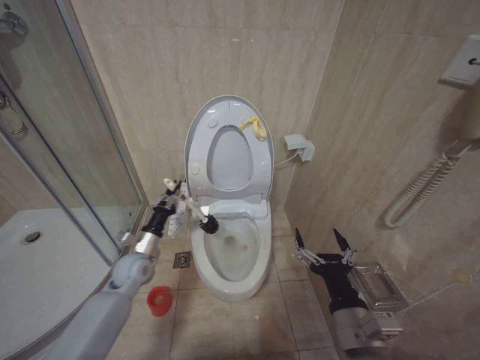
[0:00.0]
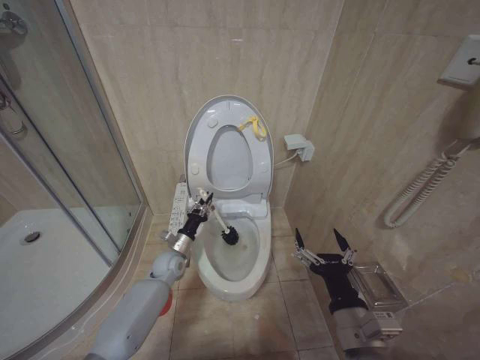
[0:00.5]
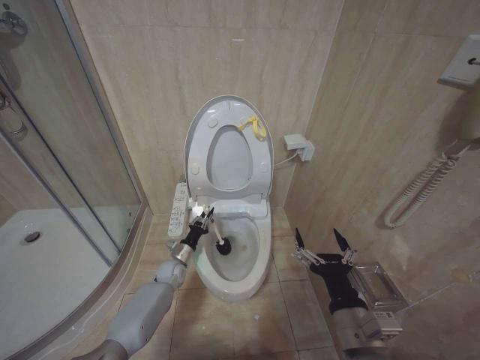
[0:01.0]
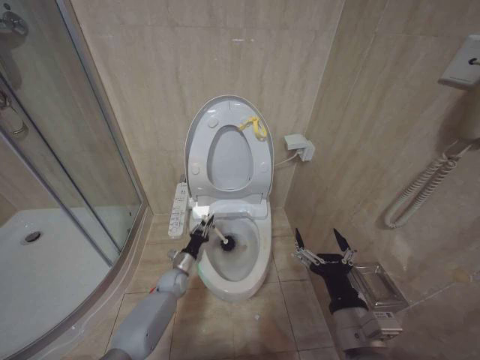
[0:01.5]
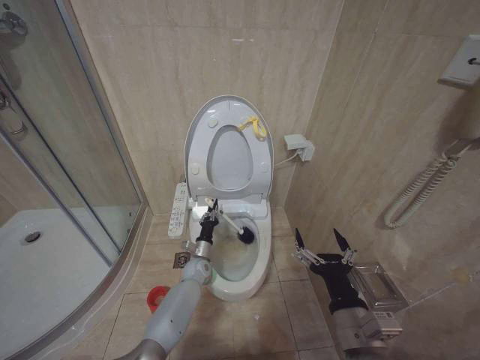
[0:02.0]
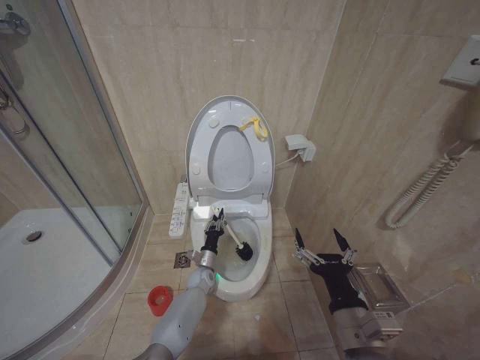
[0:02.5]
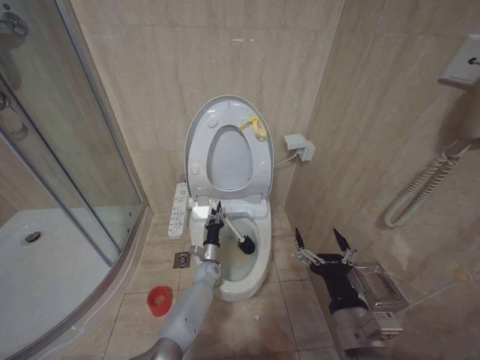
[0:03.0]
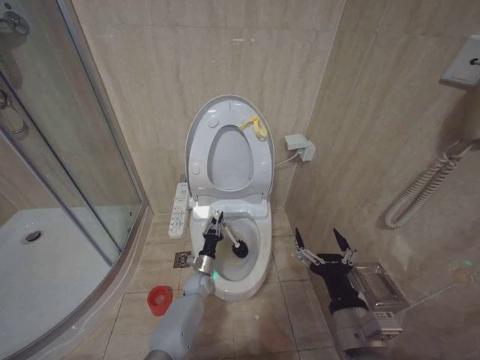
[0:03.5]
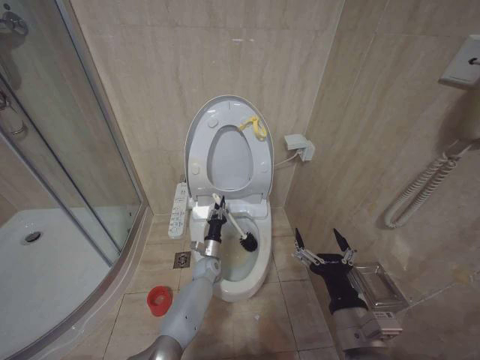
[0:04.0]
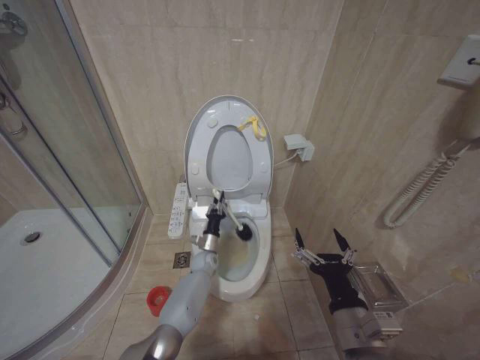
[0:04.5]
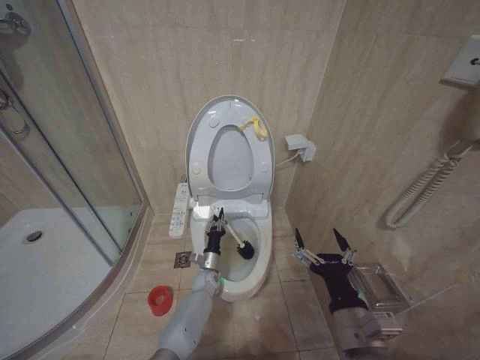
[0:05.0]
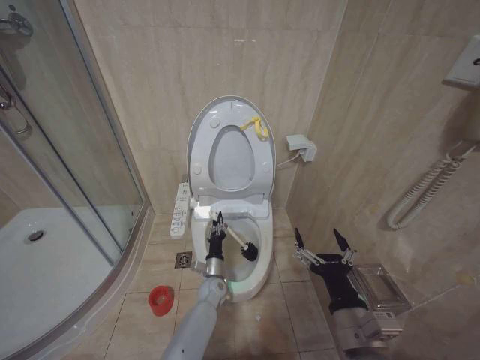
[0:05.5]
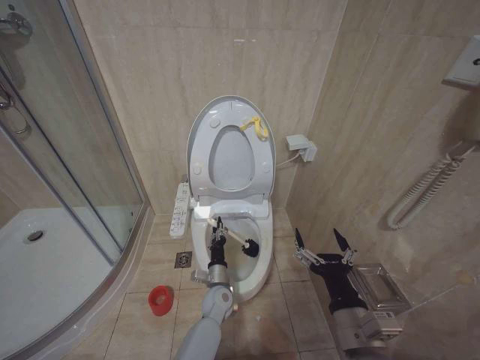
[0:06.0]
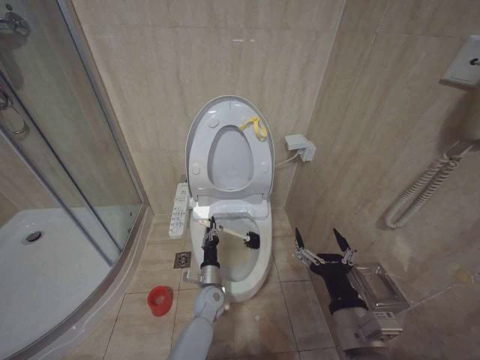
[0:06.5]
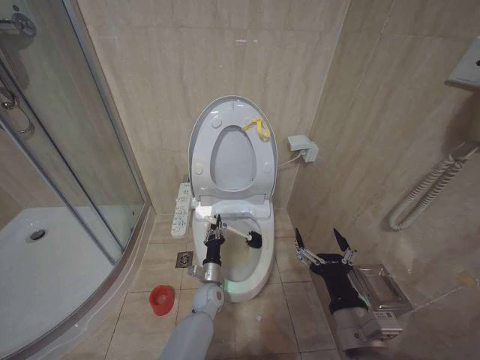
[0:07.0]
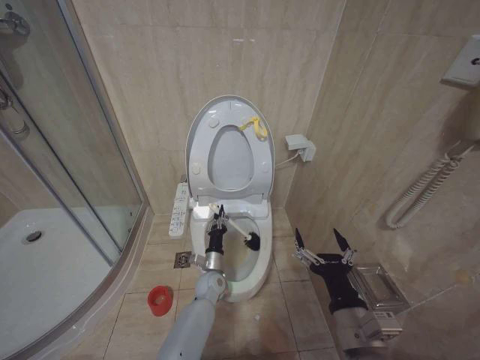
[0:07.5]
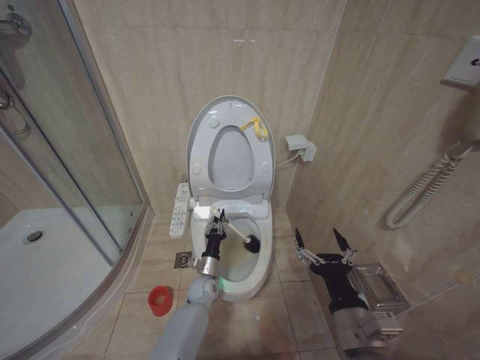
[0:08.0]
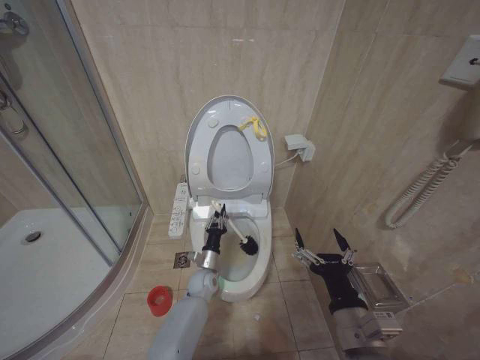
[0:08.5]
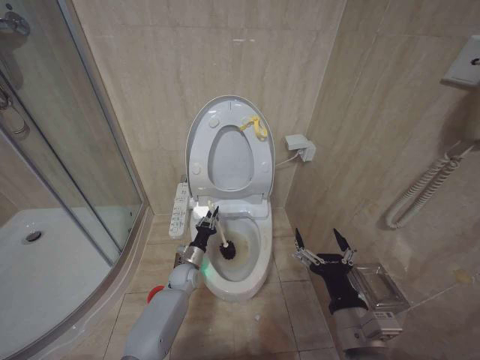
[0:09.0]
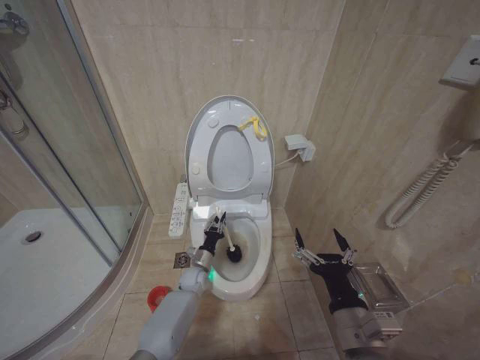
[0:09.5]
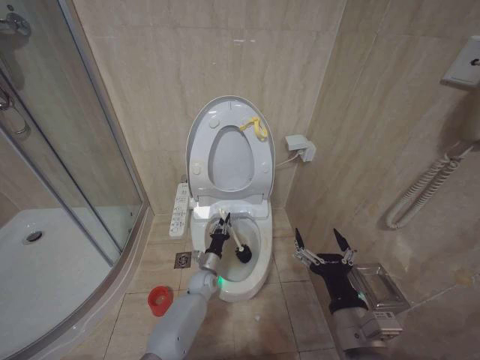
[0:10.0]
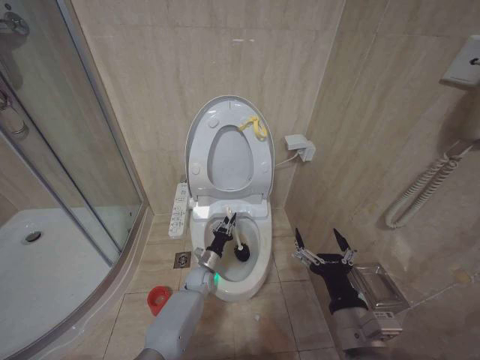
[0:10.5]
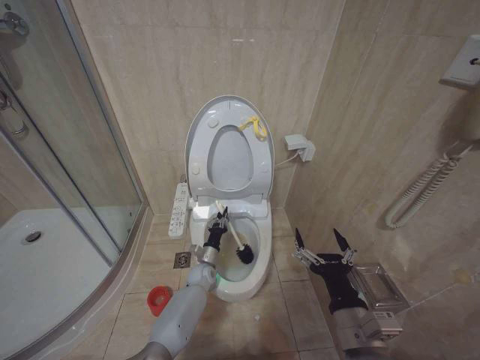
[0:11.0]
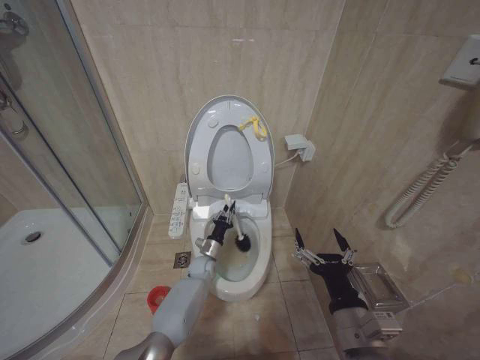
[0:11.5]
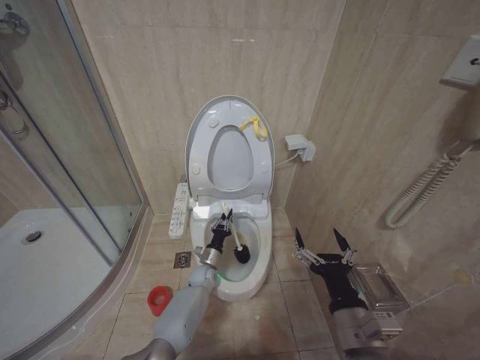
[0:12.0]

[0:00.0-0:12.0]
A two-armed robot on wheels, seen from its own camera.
Task of the whole recording: Open the toilet lid, clean the toilet bowl with a toilet brush, close the toilet lid, and flush.
0.0 to 2.0 s: The left gripper is displaced downward, to the right and forward by about 25 cm.
2.0 to 4.0 s: The left gripper goes roughly 5 cm to the right.
4.0 to 6.0 s: The left gripper heads backward, covering approximately 10 cm.
6.0 to 8.0 s: The left gripper ends up some 5 cm from where it was.

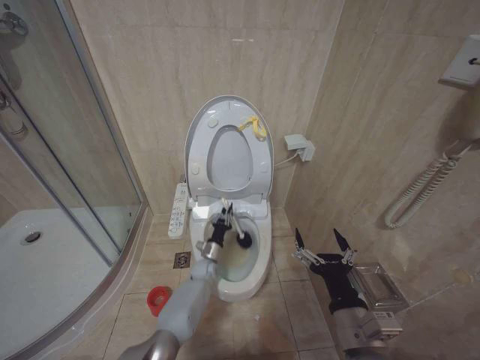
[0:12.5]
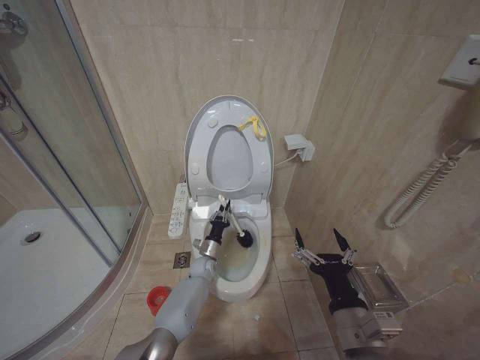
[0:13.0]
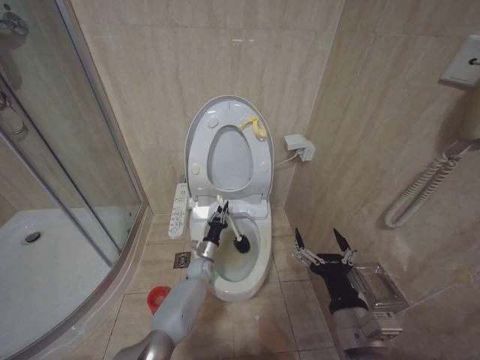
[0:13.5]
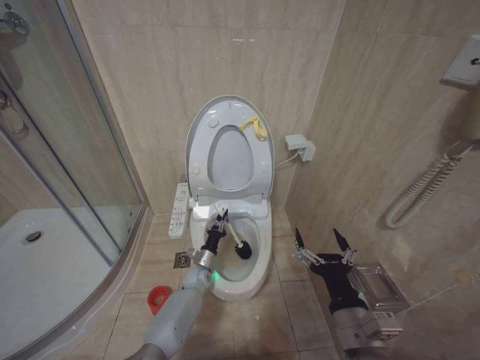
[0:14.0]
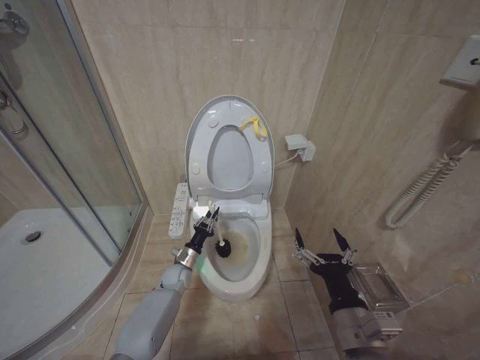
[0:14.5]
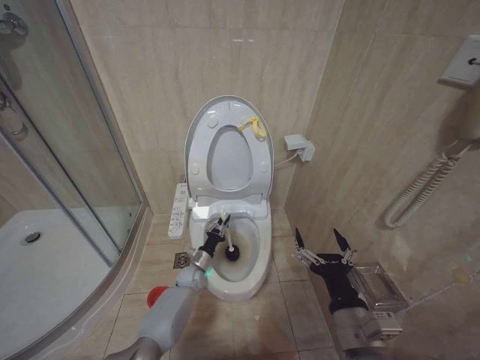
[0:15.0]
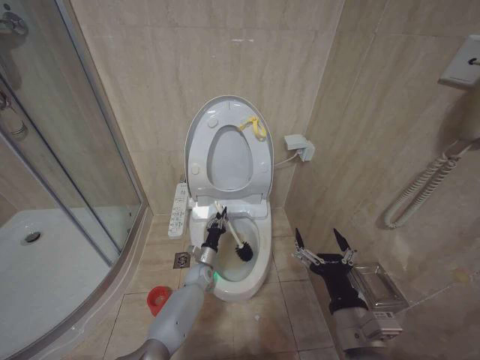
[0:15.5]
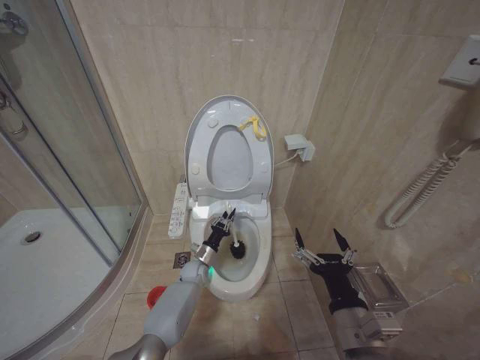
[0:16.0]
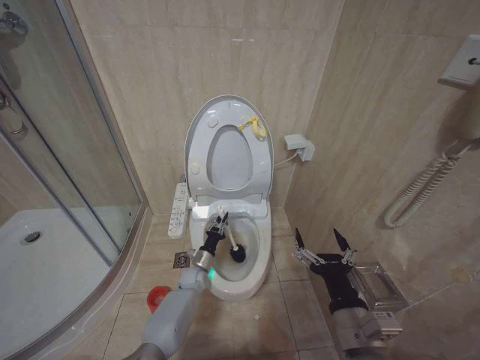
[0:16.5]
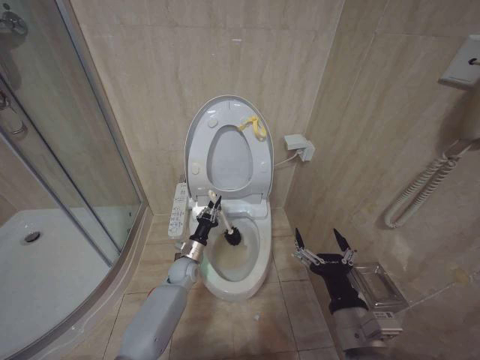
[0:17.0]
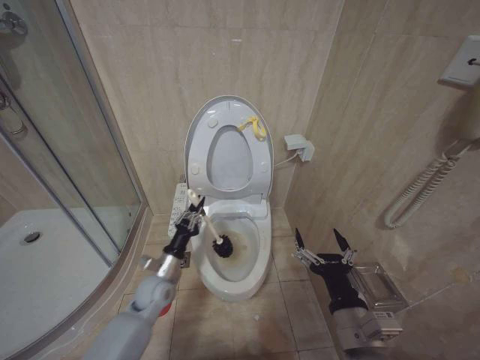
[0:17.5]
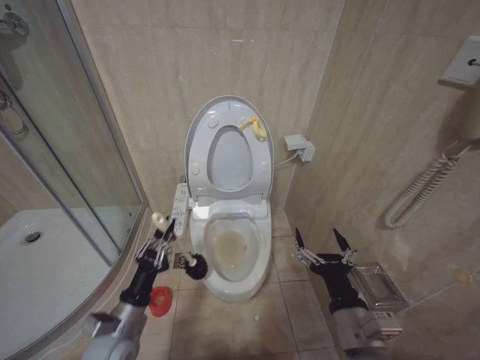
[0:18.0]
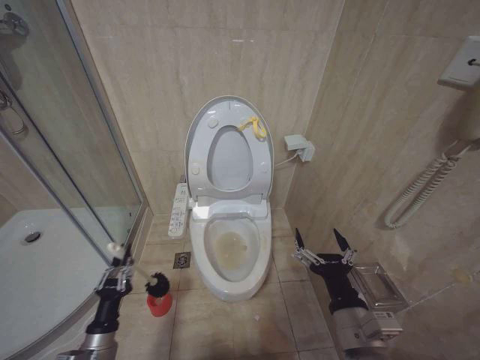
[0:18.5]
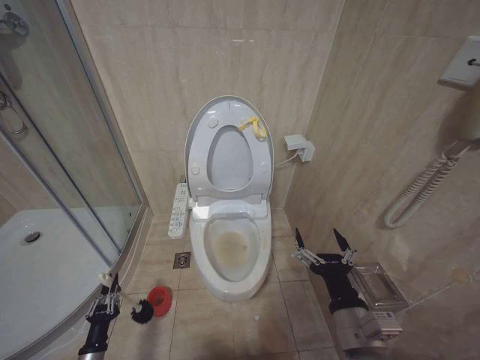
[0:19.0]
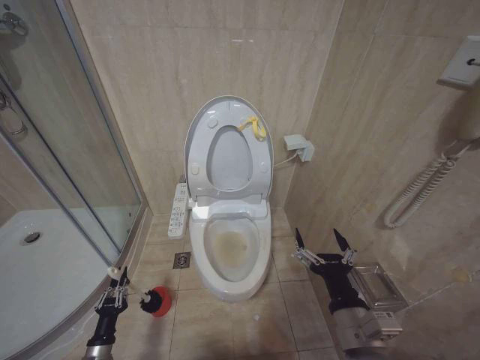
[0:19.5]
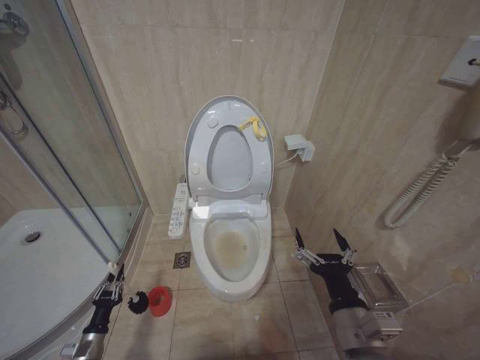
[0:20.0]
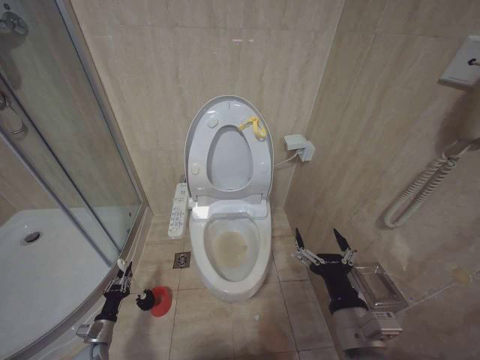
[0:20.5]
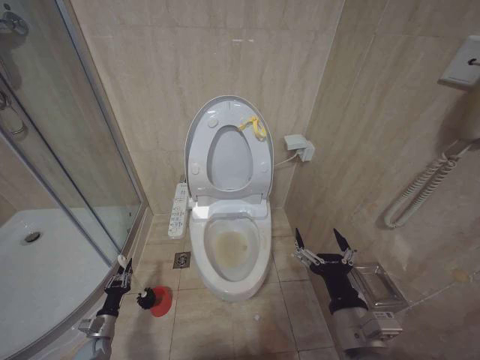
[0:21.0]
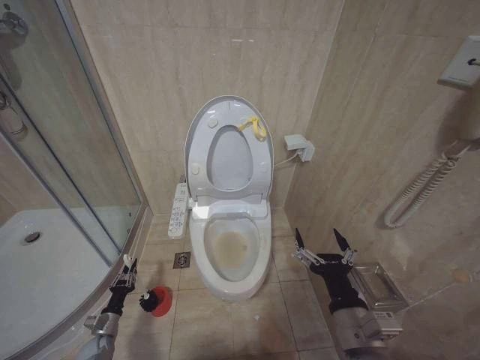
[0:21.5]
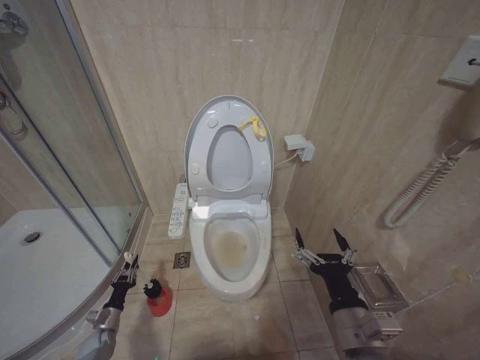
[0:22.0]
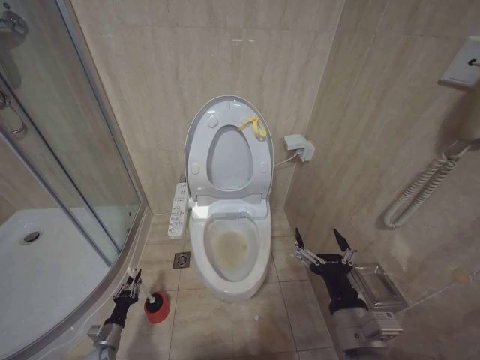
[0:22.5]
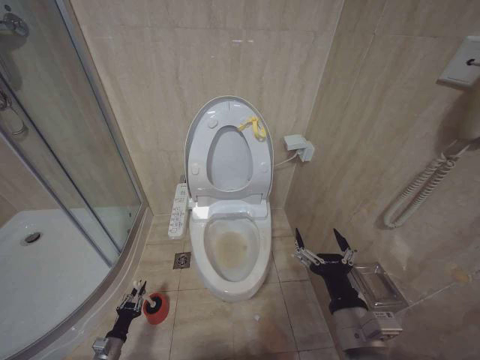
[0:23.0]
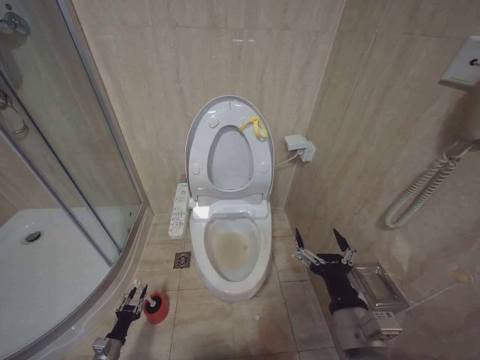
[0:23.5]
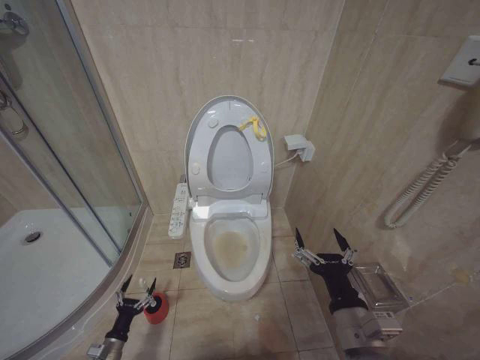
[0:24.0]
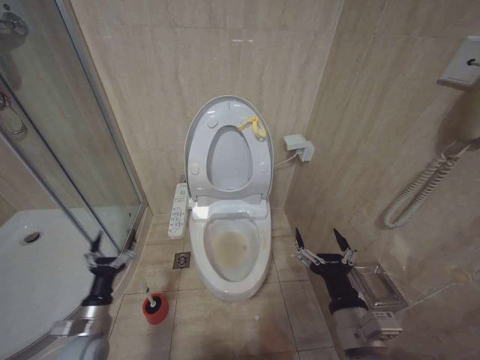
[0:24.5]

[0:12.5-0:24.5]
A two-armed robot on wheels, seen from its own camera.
Task of the whole recording: Open the toilet lid, clean the toilet bowl with a toilet brush, close the toilet lid, and flush.
12.5 to 14.5 s: The left gripper goes approximately 10 cm to the left.
14.5 to 16.5 s: The left gripper shifts about 5 cm to the right.
16.5 to 18.5 s: The left gripper heads backward and to the left, covering approximately 30 cm.
18.5 to 20.5 s: The left gripper shifts approximately 25 cm downward, to the left and forward.
20.5 to 22.5 s: The grippers stay close to where they were, moving slightly.
22.5 to 24.5 s: The left gripper goes about 20 cm upward, and opens up.

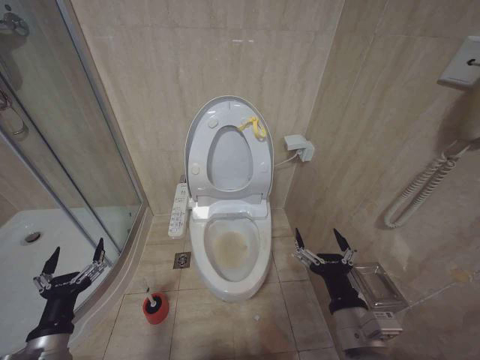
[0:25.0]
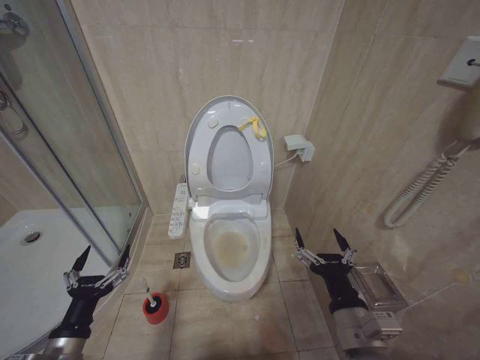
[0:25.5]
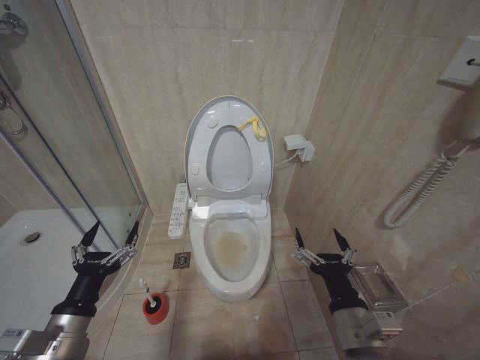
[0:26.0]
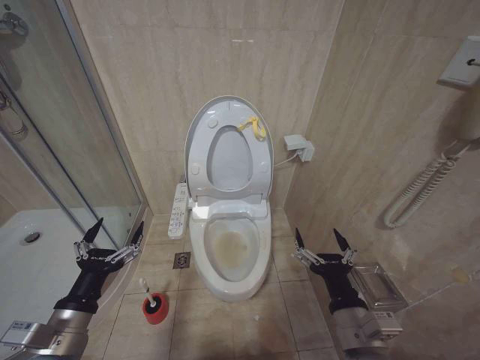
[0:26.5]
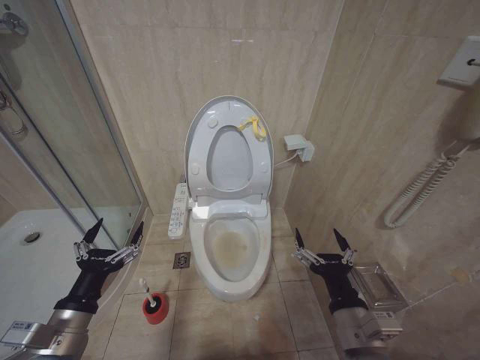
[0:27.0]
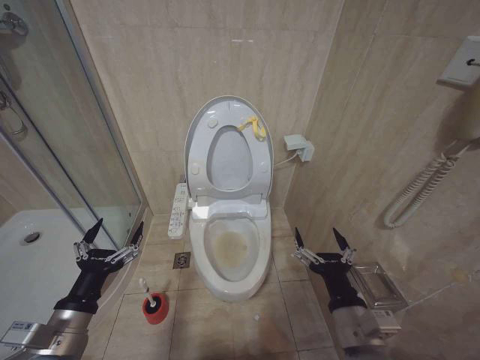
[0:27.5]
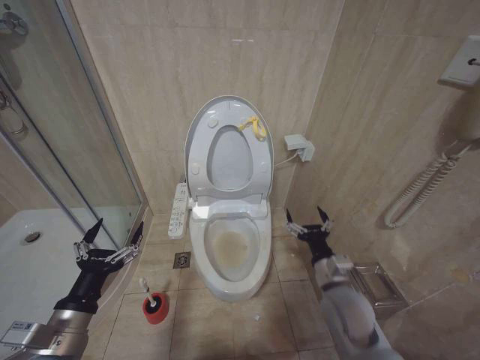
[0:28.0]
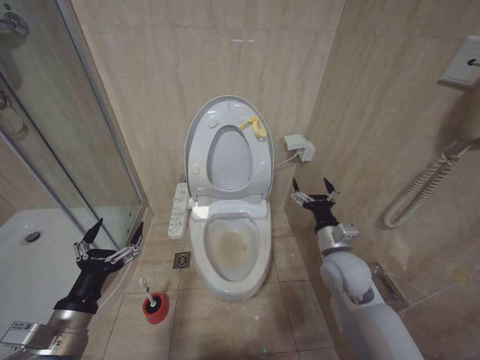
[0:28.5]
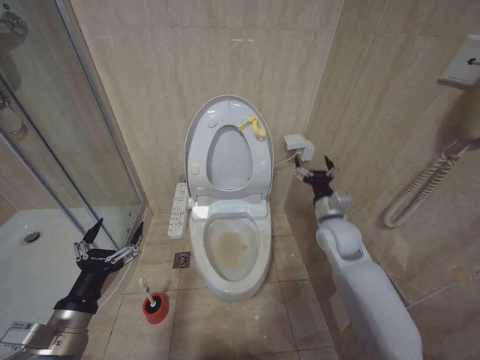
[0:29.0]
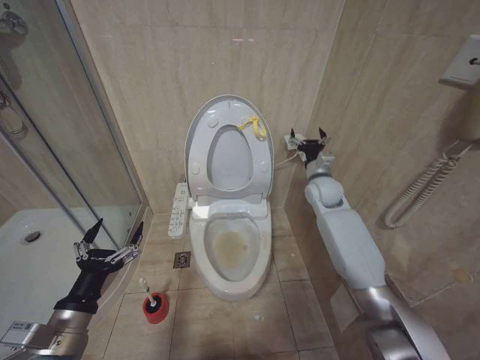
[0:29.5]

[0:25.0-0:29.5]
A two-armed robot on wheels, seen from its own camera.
Task of the whole recording: Open the toilet lid, clean the toilet bowl with a toilet brush, close the toilet lid, and flush.
25.0 to 27.0 s: The left gripper goes roughly 5 cm upward.
27.0 to 29.5 s: The right gripper goes about 35 cm forward.
